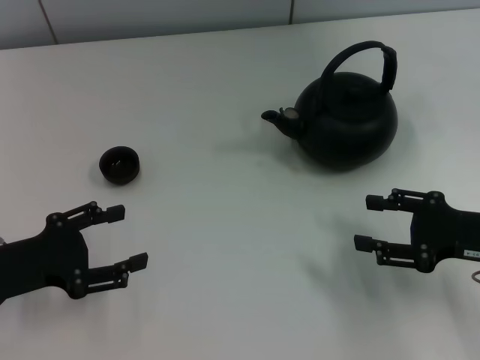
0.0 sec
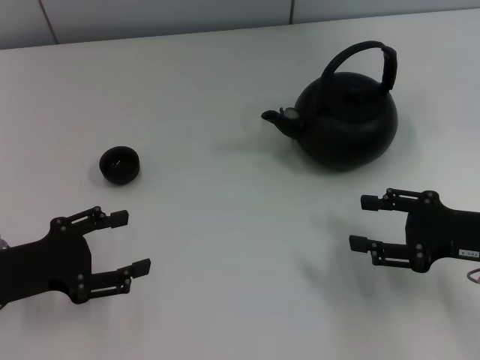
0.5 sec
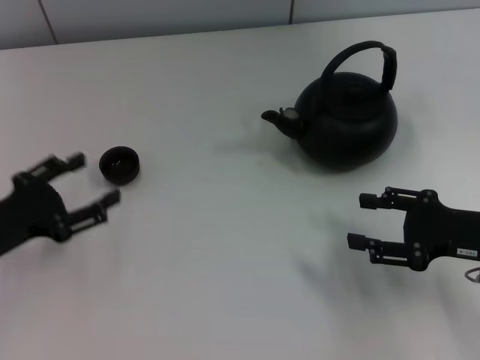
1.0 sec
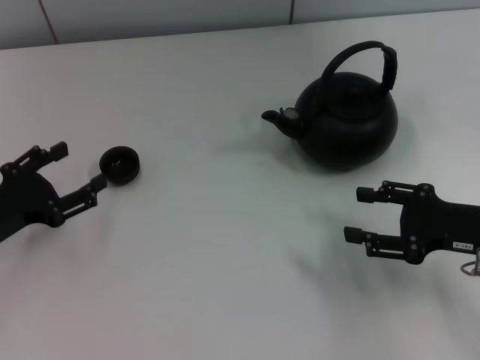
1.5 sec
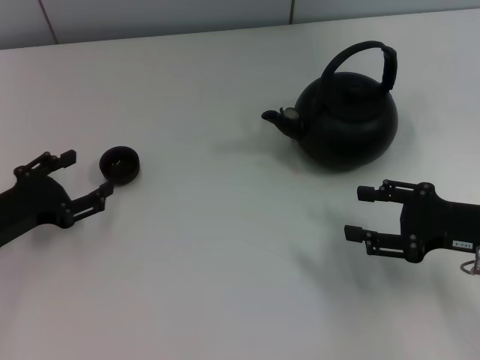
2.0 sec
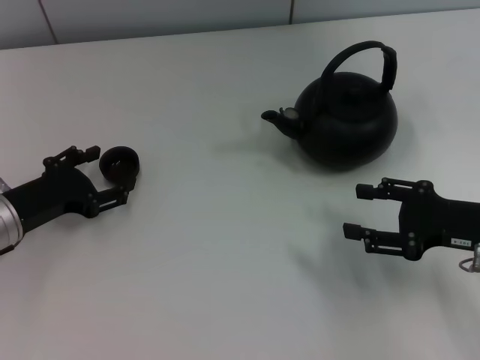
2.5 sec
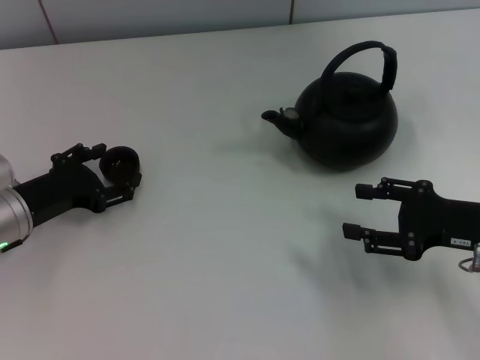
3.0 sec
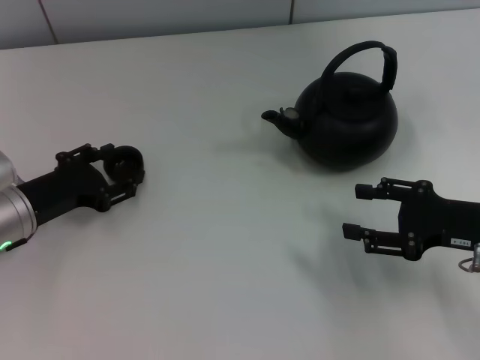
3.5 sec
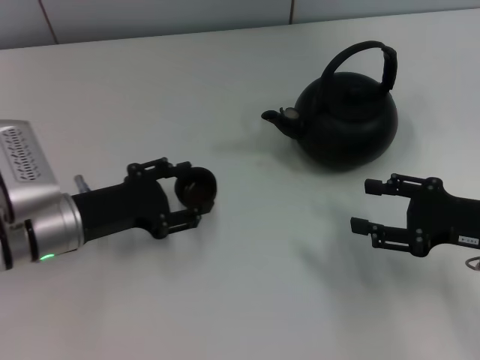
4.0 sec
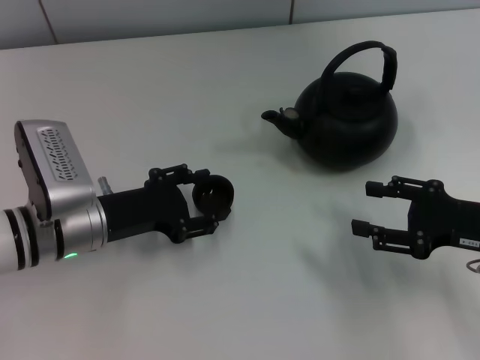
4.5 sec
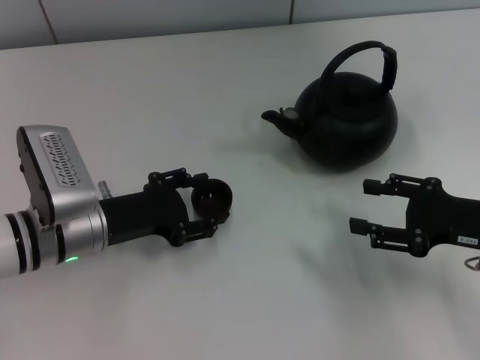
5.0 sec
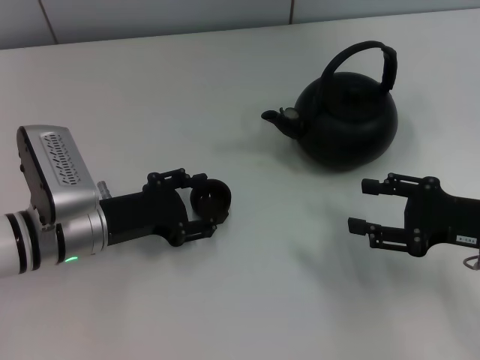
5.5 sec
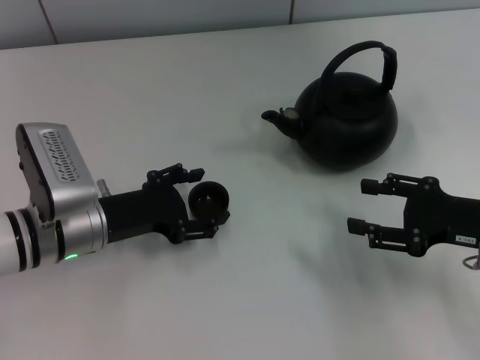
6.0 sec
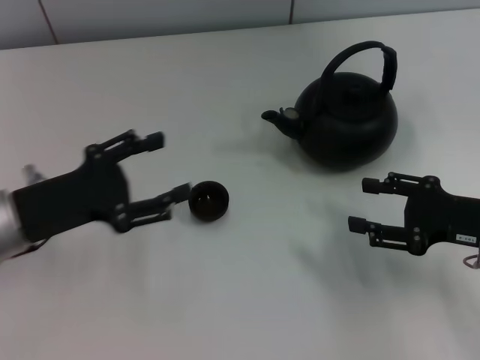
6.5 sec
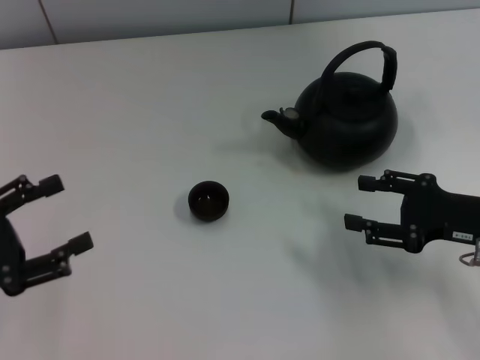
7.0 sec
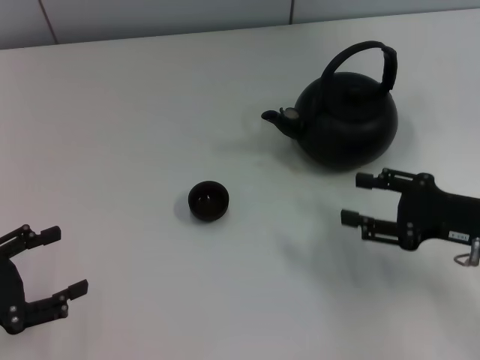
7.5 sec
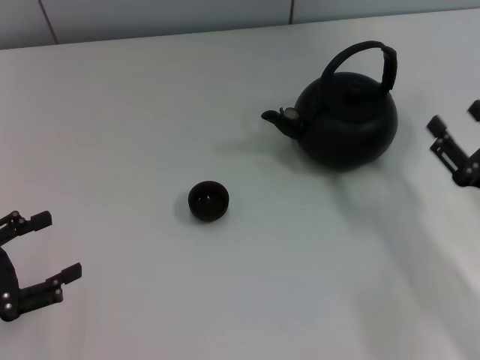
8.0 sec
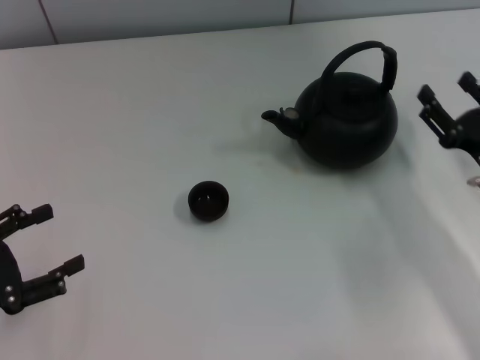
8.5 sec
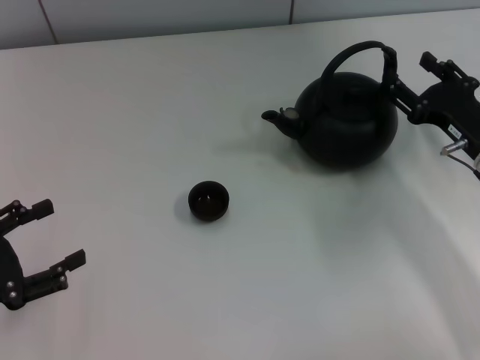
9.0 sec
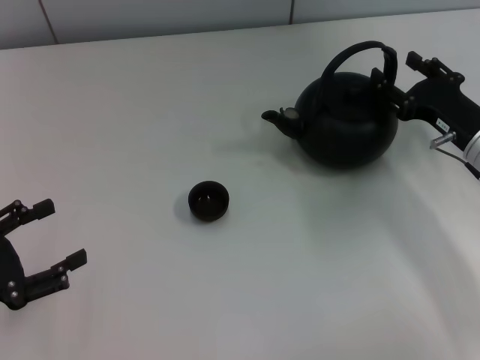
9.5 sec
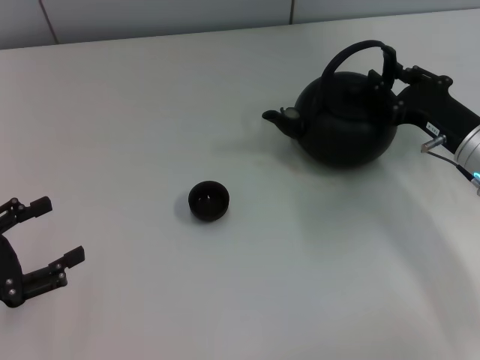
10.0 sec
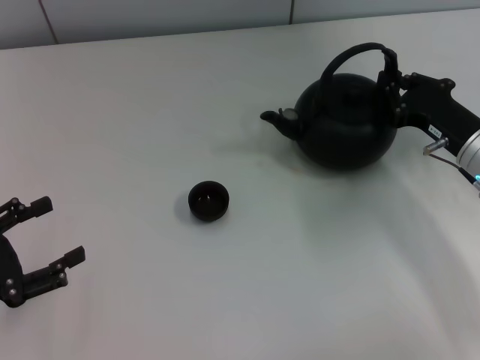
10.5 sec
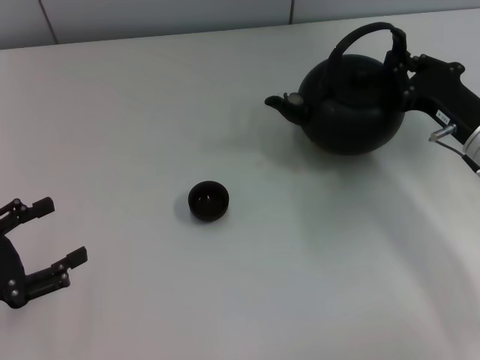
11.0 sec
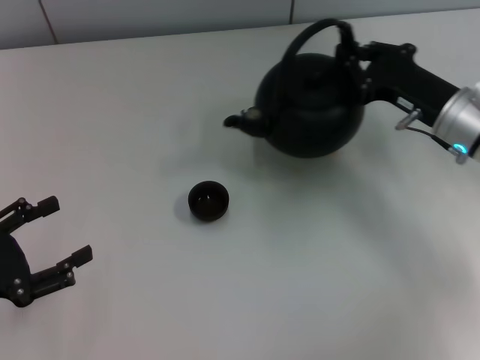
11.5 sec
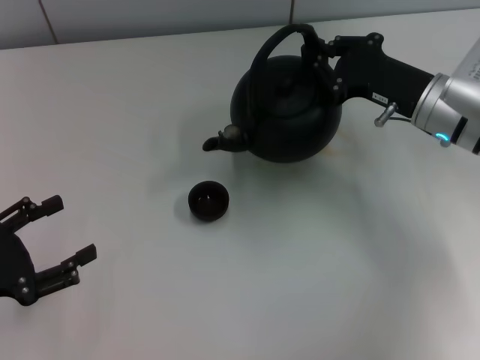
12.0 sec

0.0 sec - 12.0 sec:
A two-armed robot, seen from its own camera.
Task of the whole recording: Grasp the handle of the teapot with one hand and pour tea into the teacup.
Step, 0.0 sec - 4.0 sec: Pick up the teacup with the left gripper.
Step, 4.5 sec - 6.0 sec: Place the teacup in the center of view with the left gripper.
Step, 6.5 sec - 11.0 sec: Pick up the teapot with the right gripper.
0.0 sec - 2.0 sec: The left gripper closes up.
2.0 sec - 4.0 sec: The left gripper goes about 10 cm to the right, and closes up.
4.0 sec - 6.0 sec: The left gripper opens.
6.0 sec - 8.0 sec: The left gripper shifts about 20 cm to the left and backward, and opens; the right gripper moves some 5 cm.
8.0 sec - 10.0 sec: The right gripper moves forward, about 10 cm.
10.0 sec - 12.0 sec: The right gripper moves about 5 cm, and closes.

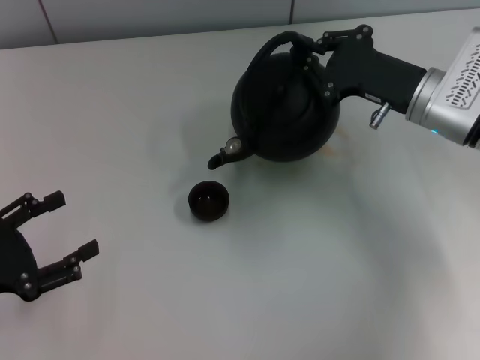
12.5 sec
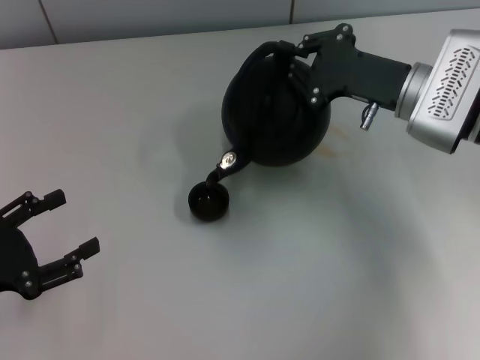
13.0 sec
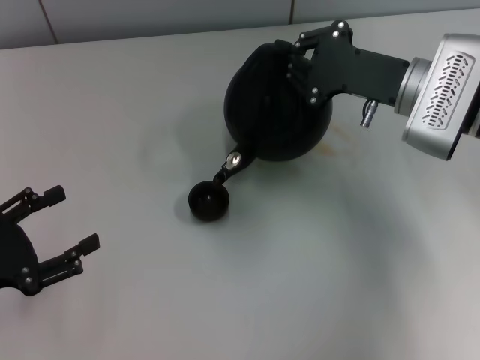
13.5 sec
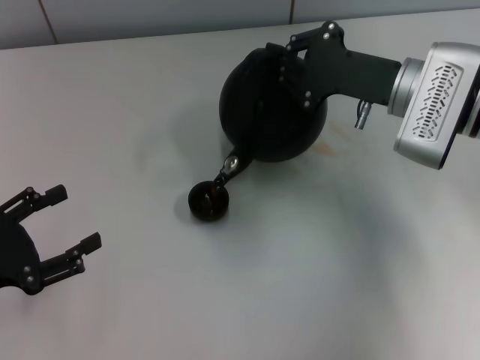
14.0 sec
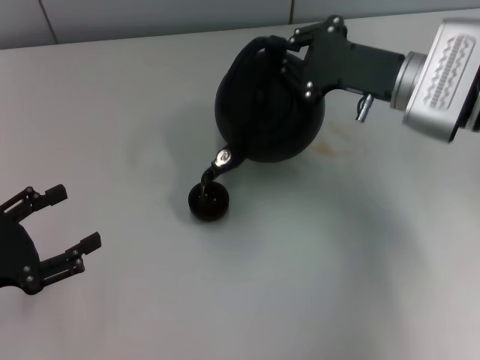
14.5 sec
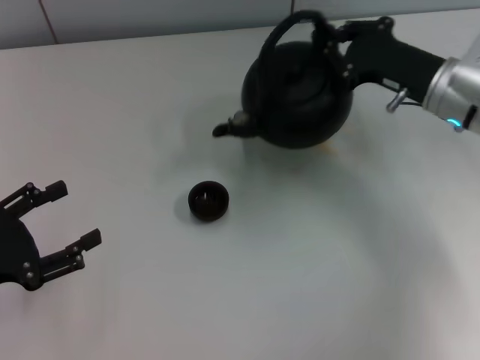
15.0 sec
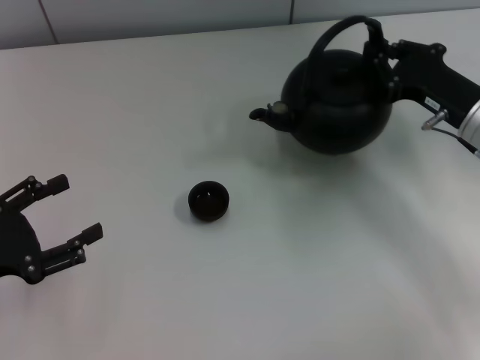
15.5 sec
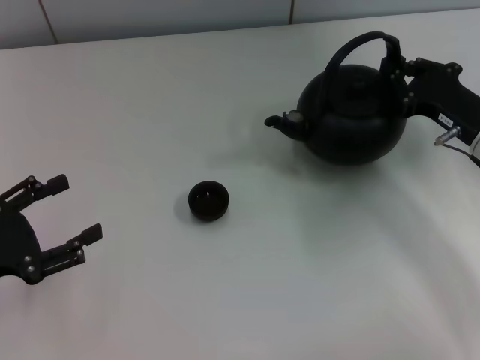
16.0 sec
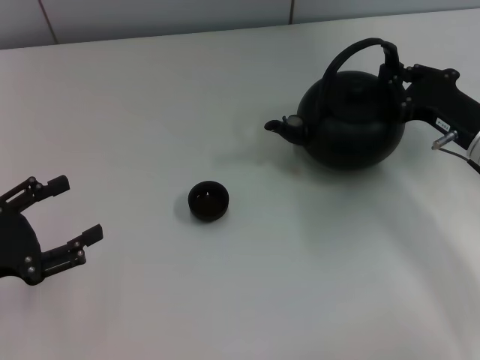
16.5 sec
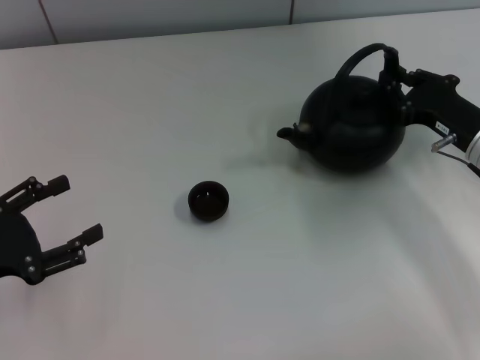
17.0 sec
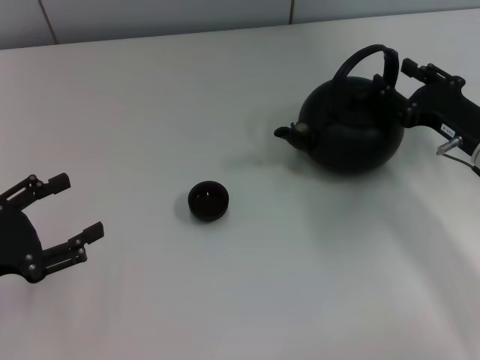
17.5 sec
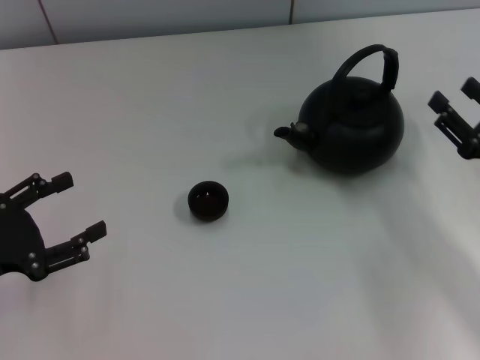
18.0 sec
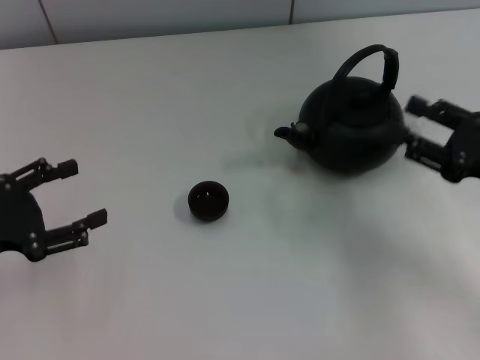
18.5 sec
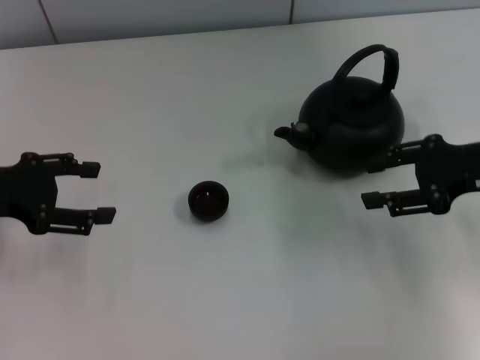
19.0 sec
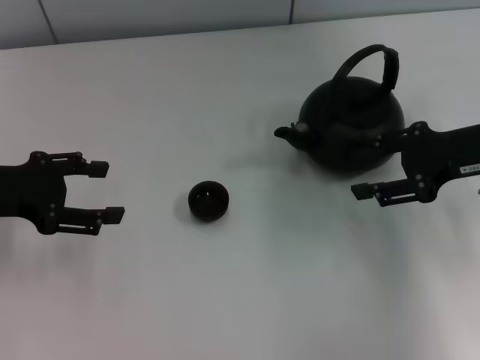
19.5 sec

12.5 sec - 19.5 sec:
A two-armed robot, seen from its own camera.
Task of the whole recording: Grasp the handle of the teapot with one hand and pour tea into the teacup.
Step, 15.0 sec - 18.0 sec: Put down the teapot with the right gripper.
14.5 sec - 16.0 sec: The right gripper travels to the right, backward and downward by approximately 10 cm.
16.0 sec - 17.5 sec: The right gripper opens its fingers.
17.5 sec - 19.5 sec: The right gripper moves upward, roughly 10 cm; the left gripper travels forward and upward by some 10 cm.

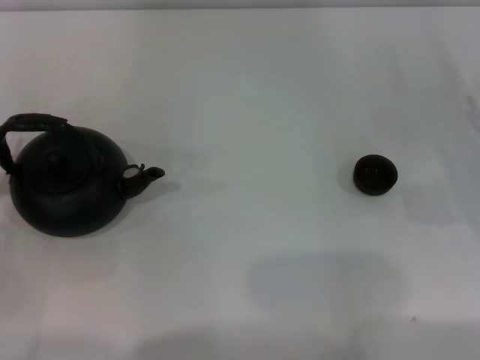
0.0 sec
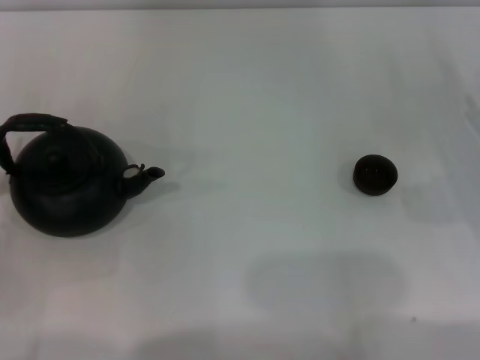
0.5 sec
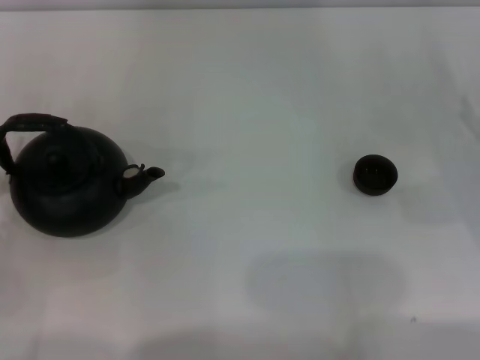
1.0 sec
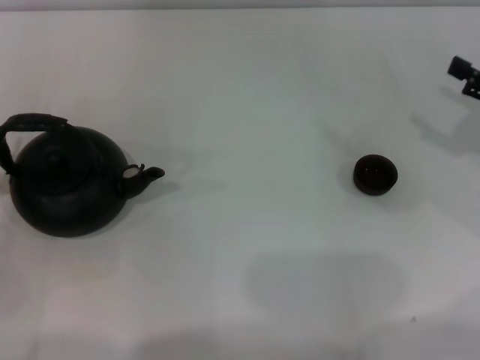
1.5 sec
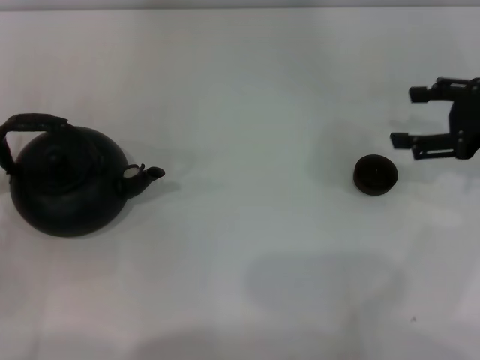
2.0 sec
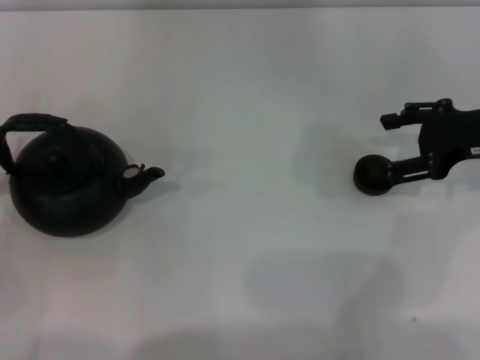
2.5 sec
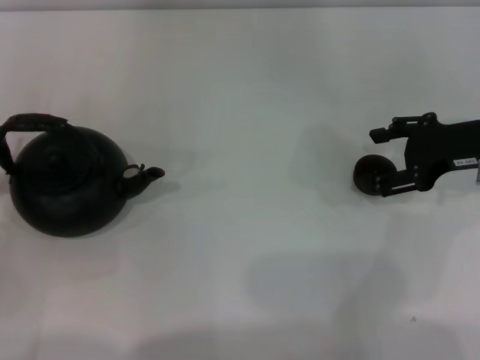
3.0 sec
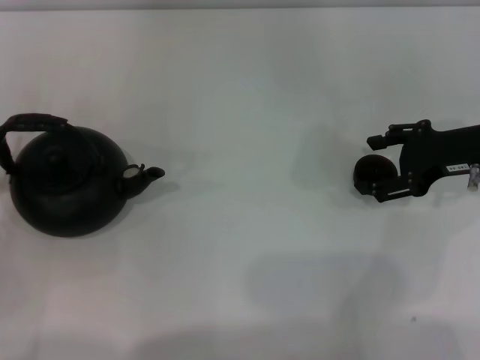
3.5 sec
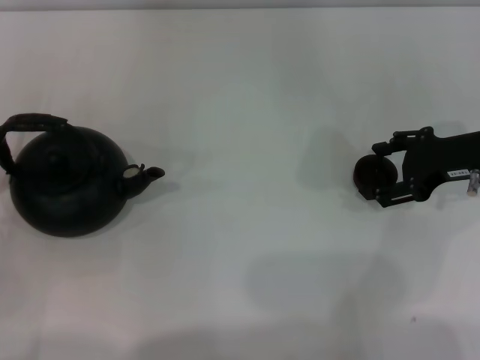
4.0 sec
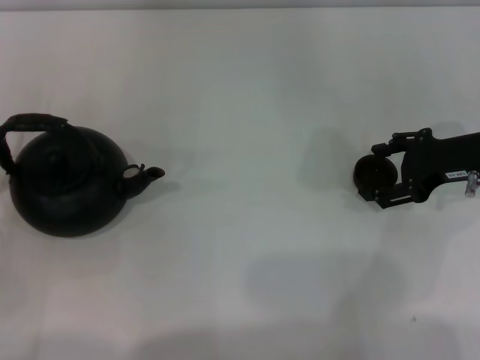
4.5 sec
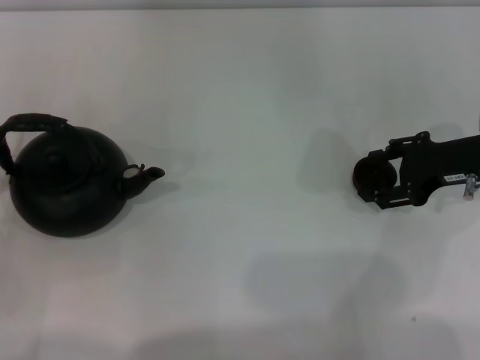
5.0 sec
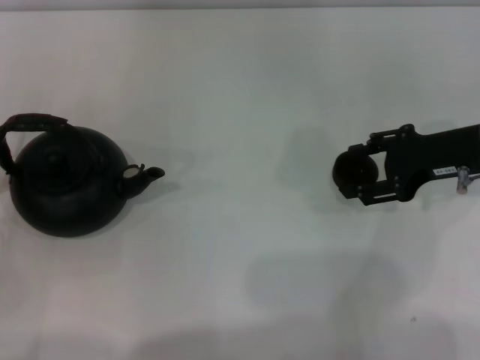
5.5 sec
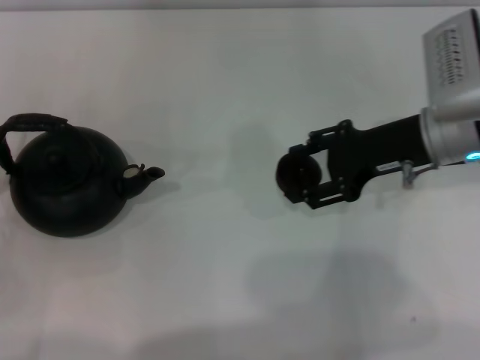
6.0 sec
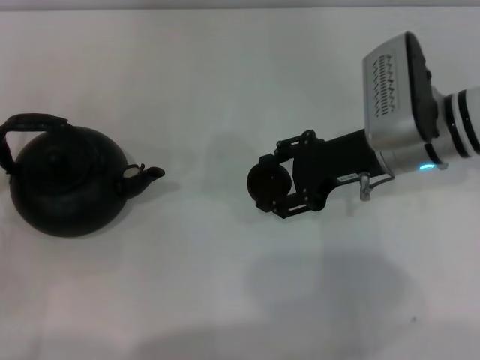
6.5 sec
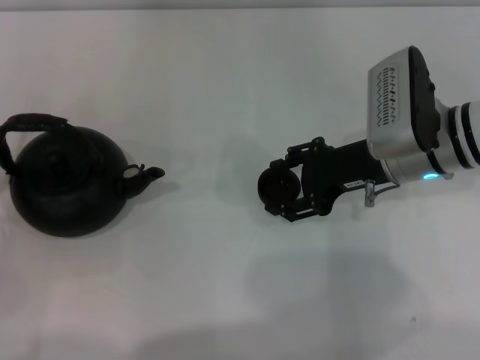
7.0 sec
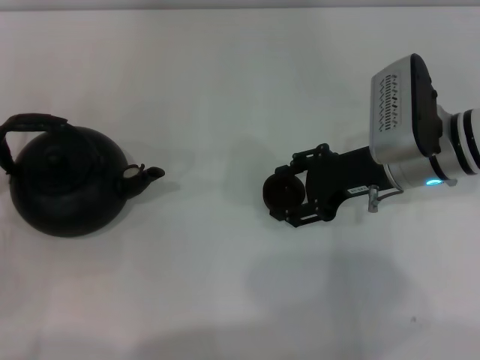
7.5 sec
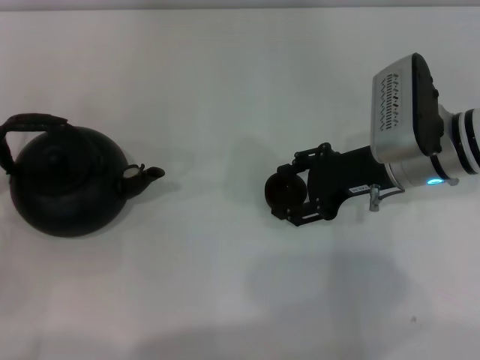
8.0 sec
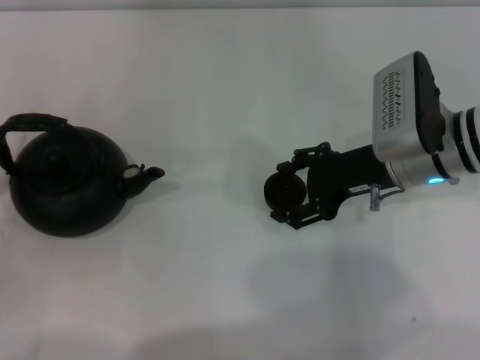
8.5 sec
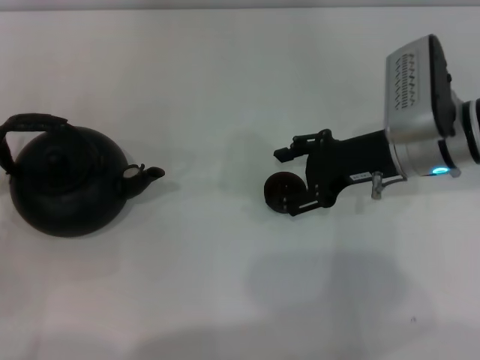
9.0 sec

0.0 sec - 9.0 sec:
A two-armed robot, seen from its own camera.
Task of the whole recording: Grasp the handle of the teapot with one hand and pour tea into the teacup.
Step, 0.0 sec - 5.5 sec: Pick up the teacup with the right gripper.
0.0 sec - 2.0 sec: The right gripper is displaced upward by about 10 cm.
2.0 sec - 4.5 sec: The right gripper shifts by approximately 5 cm.
4.5 sec - 7.0 sec: The right gripper goes about 10 cm to the left, and closes up.
7.0 sec - 9.0 sec: The right gripper opens up.
